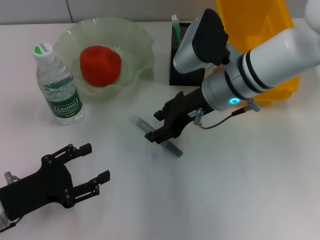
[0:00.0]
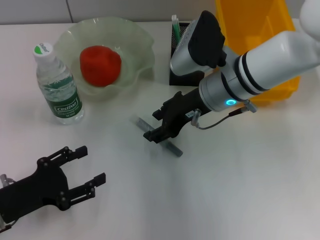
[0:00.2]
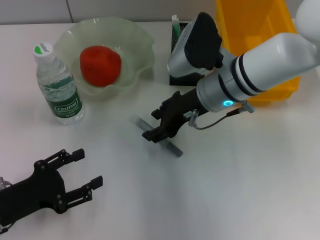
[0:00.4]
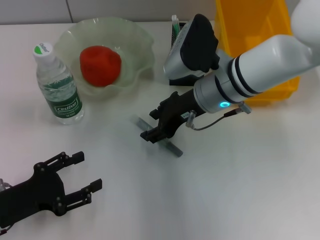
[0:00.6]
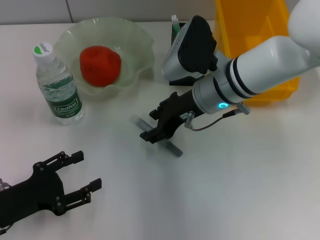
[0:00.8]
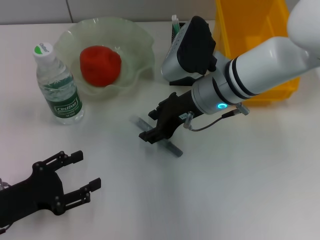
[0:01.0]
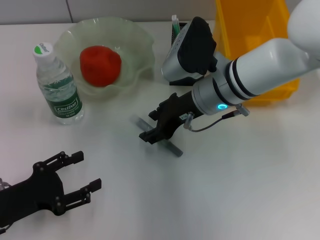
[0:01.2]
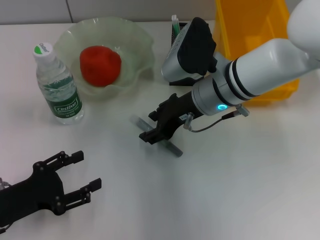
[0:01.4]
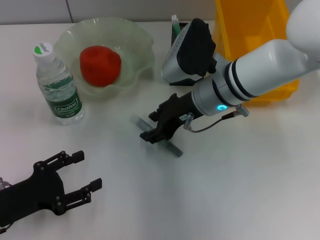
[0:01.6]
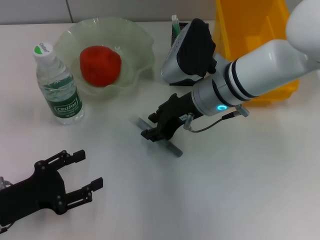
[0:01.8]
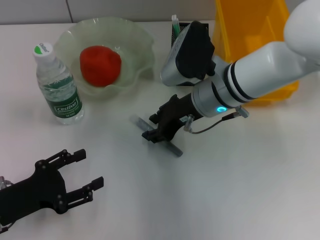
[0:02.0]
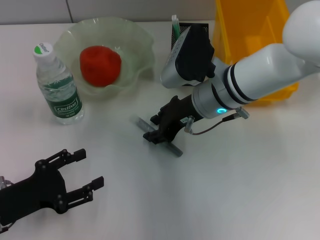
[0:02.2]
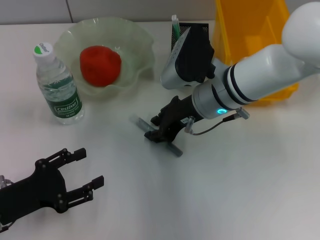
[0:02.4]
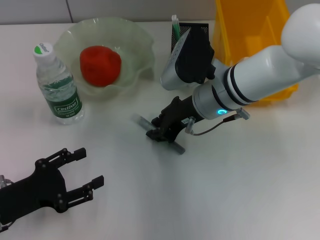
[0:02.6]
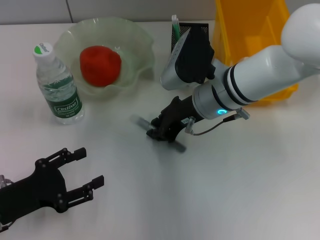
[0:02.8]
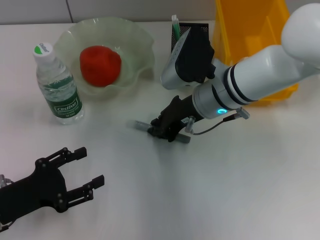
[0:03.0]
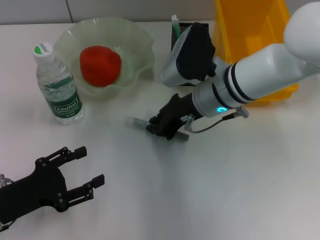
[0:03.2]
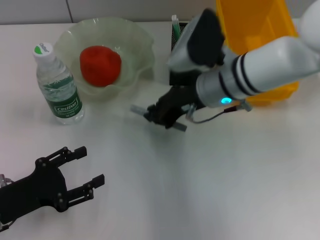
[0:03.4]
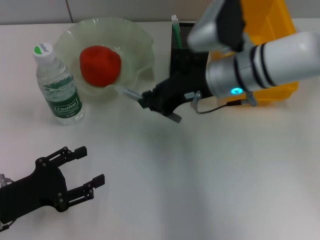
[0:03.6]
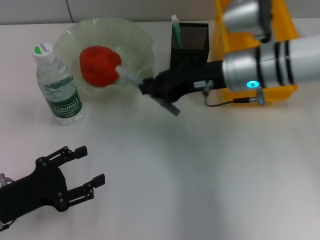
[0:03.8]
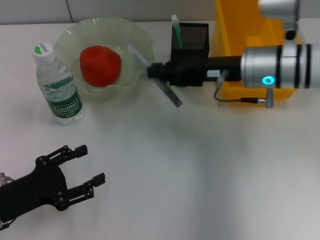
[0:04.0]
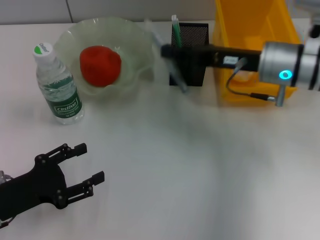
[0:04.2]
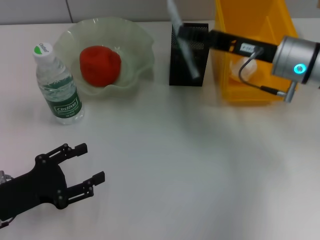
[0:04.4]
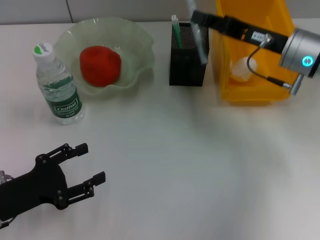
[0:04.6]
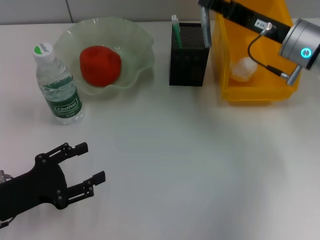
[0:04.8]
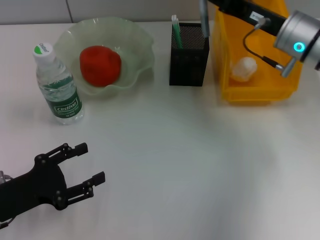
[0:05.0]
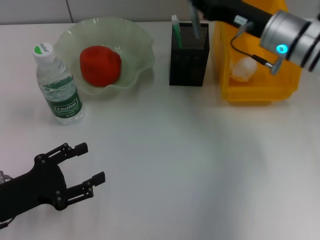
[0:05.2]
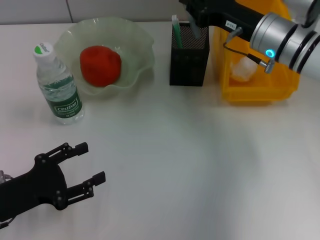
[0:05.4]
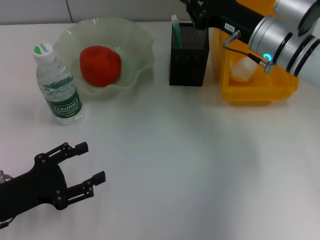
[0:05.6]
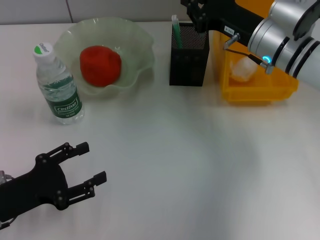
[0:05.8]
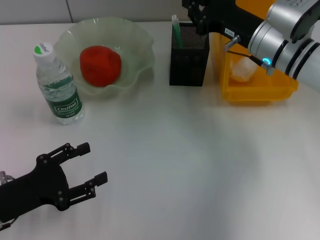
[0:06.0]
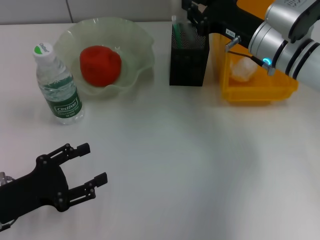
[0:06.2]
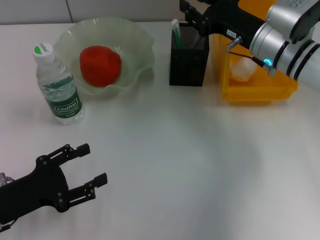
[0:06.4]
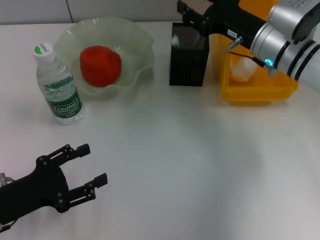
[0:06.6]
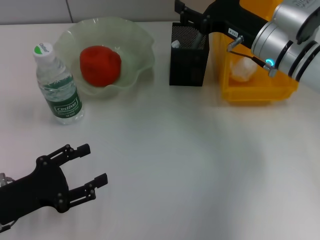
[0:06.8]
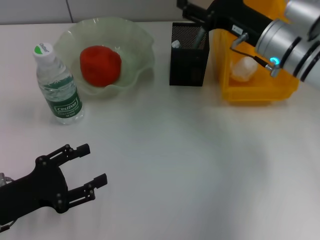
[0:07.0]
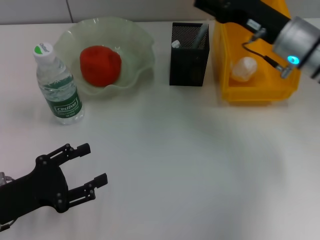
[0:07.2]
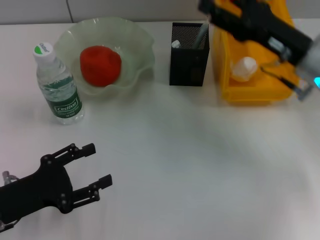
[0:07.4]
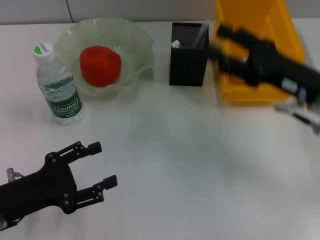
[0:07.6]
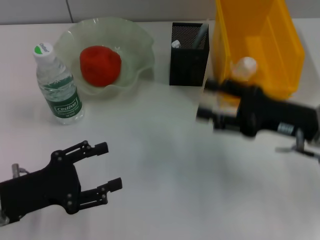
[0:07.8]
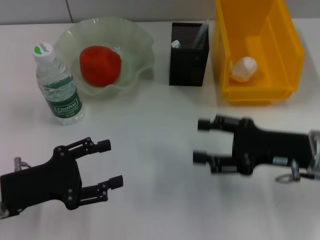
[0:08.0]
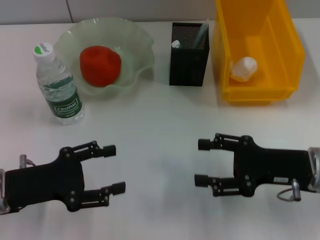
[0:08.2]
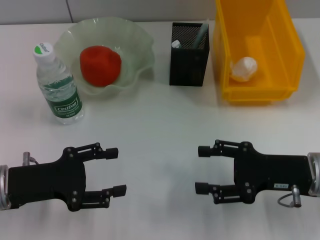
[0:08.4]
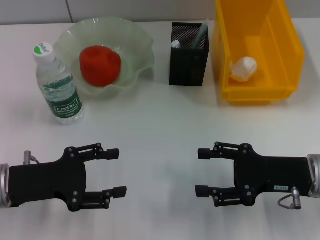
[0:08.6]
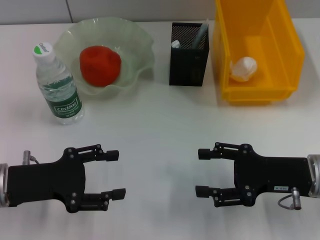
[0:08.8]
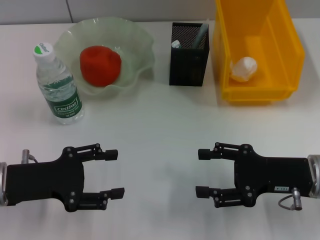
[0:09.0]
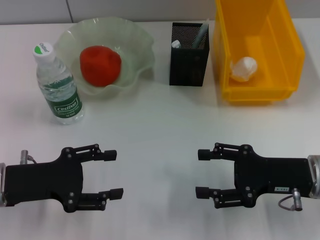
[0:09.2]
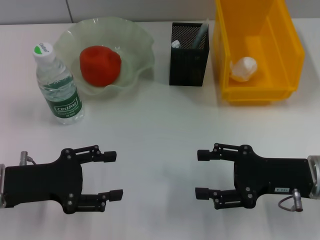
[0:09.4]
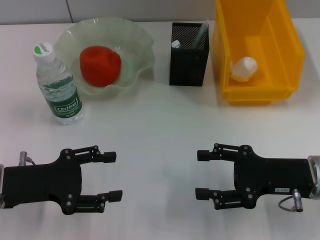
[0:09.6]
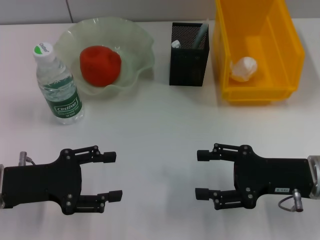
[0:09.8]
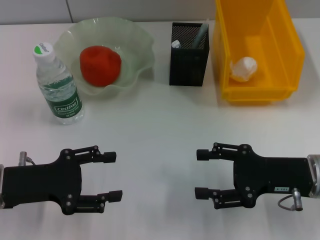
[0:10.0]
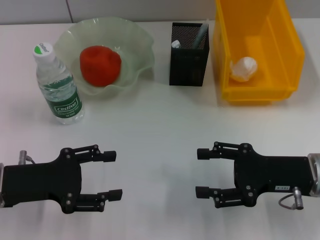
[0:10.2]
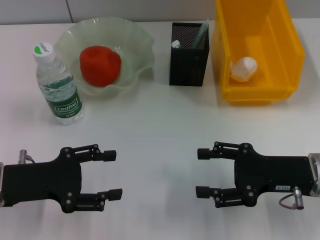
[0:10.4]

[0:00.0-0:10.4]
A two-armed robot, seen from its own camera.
Step, 0:00.0 to 0:02.8: Grab the gray glue with the right hand.
Step, 0:03.2 to 0:06.4: Place the gray glue into the pen holder with the right hand.
0:00.0 to 0:01.4: There are only small adjustments of the grippers.
0:01.4 to 0:03.0: The right gripper closes.
0:03.0 to 0:04.4: The right gripper travels to the right by approximately 10 cm.
0:06.0 to 0:07.4: The right gripper shifts approximately 5 cm backward, and opens.
0:07.4 to 0:09.0: The left gripper changes place by roughly 5 cm, while the right gripper shifts approximately 10 cm backward and downward.
0:09.0 to 0:10.4: Both grippers stay about where they are.

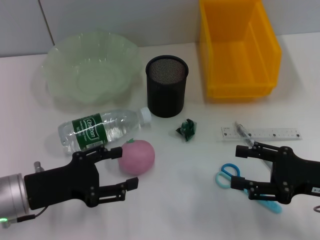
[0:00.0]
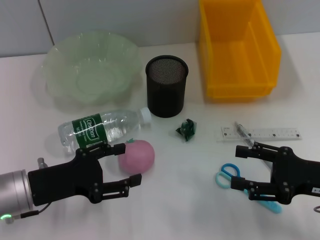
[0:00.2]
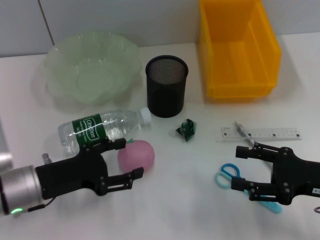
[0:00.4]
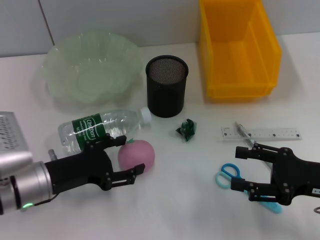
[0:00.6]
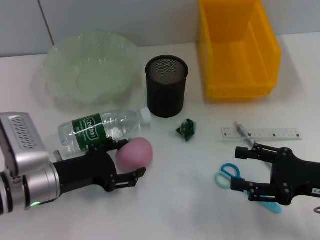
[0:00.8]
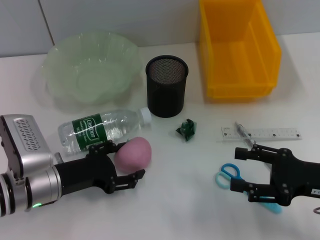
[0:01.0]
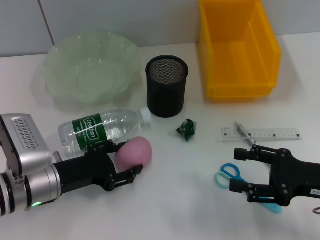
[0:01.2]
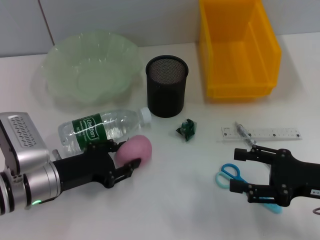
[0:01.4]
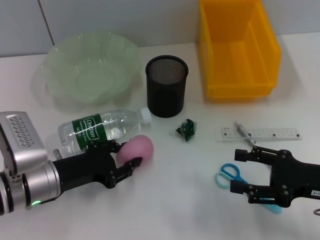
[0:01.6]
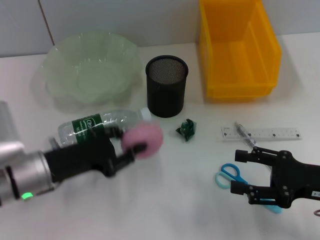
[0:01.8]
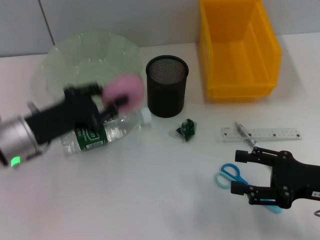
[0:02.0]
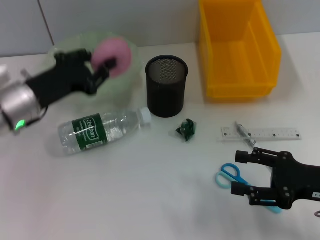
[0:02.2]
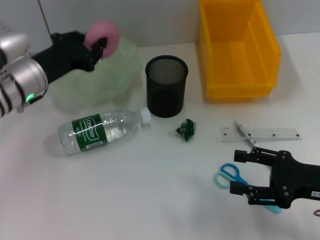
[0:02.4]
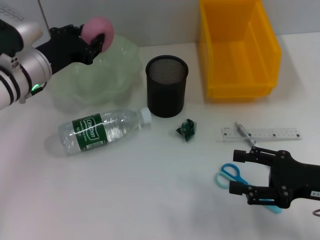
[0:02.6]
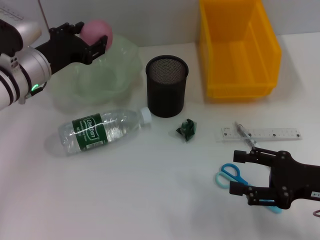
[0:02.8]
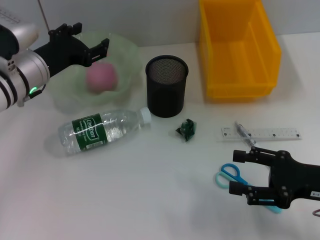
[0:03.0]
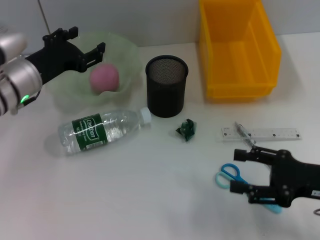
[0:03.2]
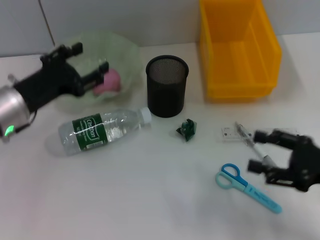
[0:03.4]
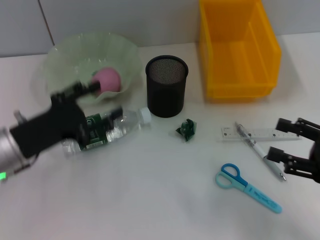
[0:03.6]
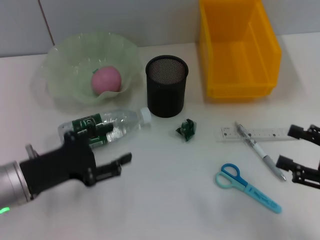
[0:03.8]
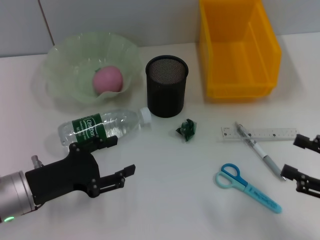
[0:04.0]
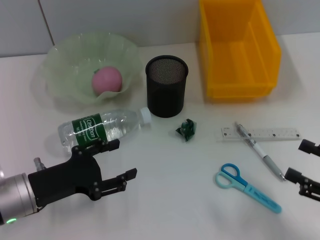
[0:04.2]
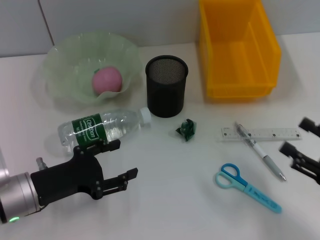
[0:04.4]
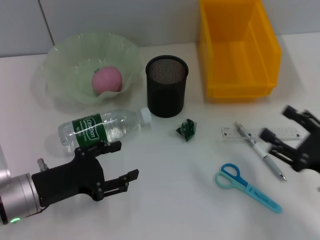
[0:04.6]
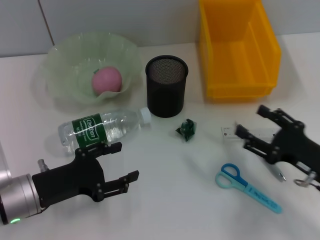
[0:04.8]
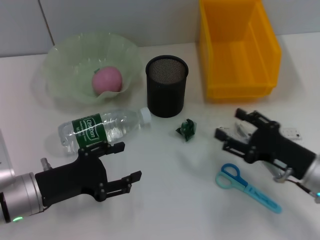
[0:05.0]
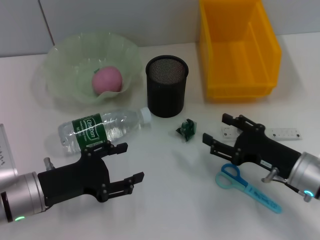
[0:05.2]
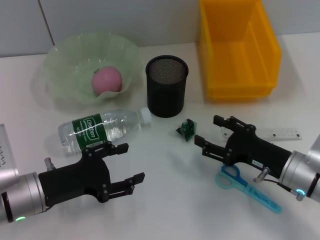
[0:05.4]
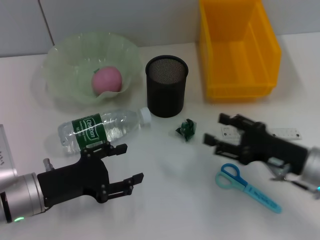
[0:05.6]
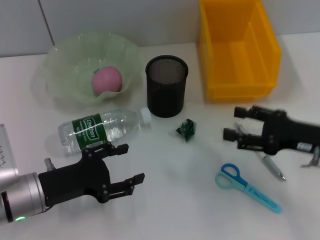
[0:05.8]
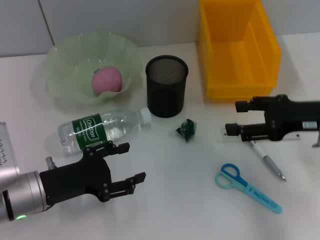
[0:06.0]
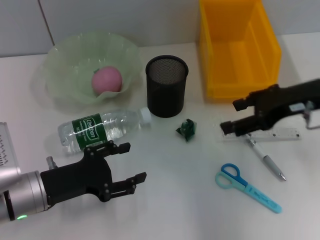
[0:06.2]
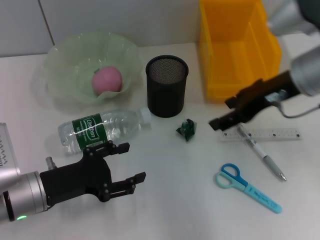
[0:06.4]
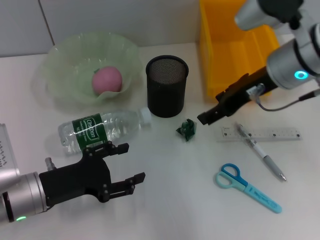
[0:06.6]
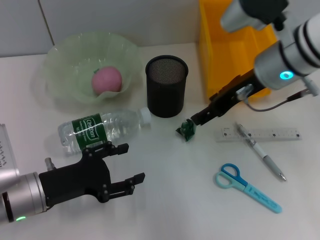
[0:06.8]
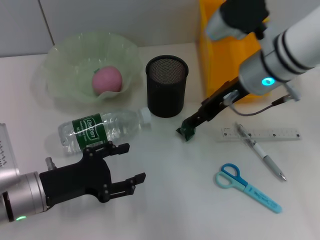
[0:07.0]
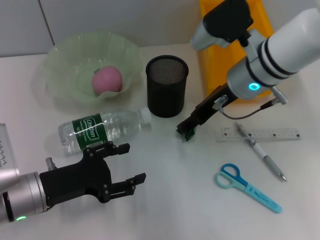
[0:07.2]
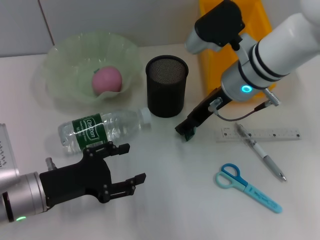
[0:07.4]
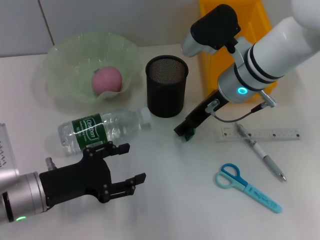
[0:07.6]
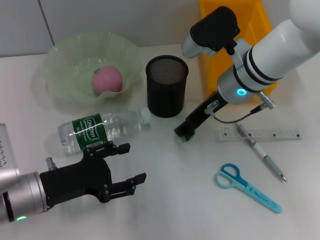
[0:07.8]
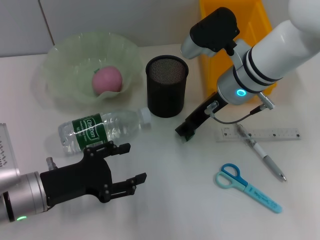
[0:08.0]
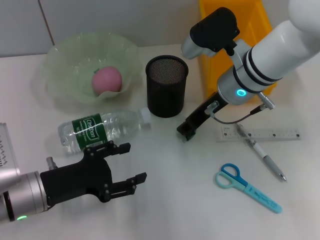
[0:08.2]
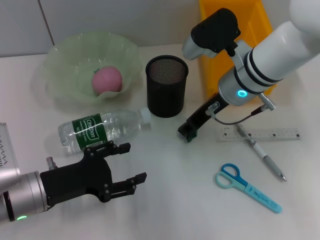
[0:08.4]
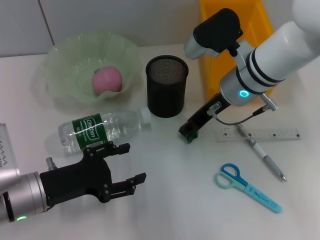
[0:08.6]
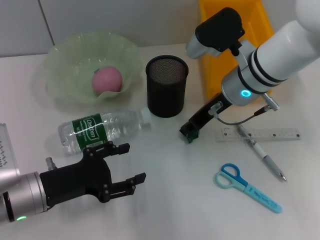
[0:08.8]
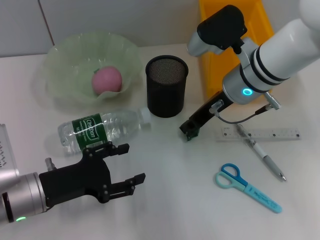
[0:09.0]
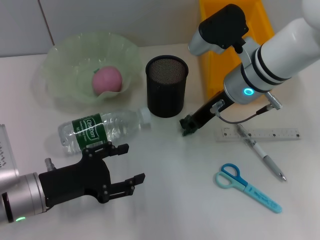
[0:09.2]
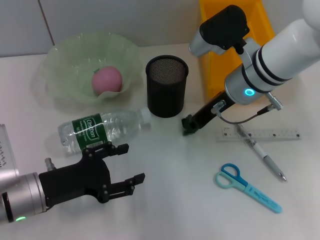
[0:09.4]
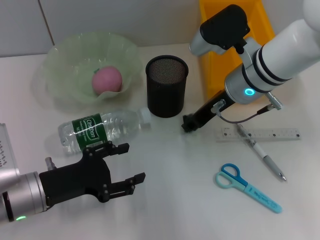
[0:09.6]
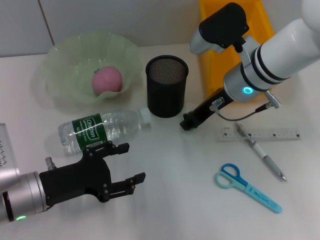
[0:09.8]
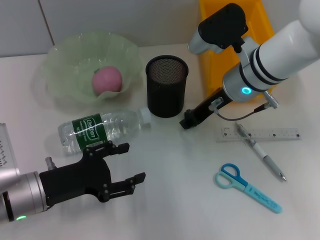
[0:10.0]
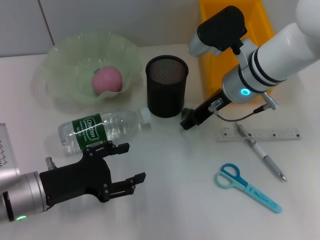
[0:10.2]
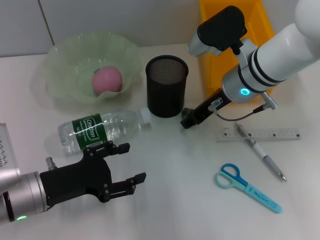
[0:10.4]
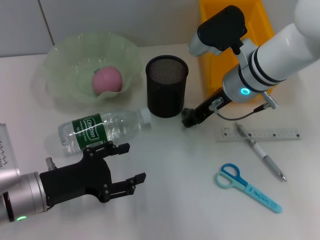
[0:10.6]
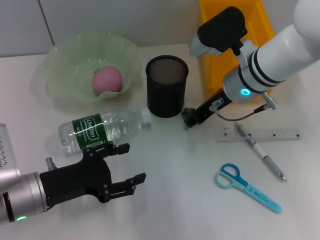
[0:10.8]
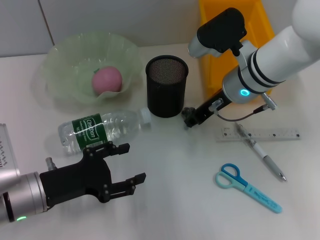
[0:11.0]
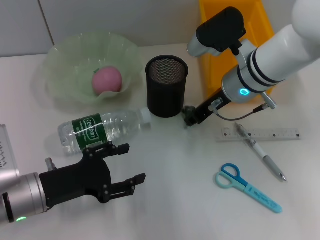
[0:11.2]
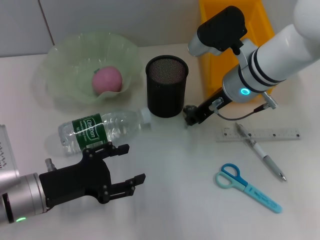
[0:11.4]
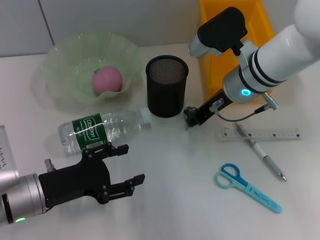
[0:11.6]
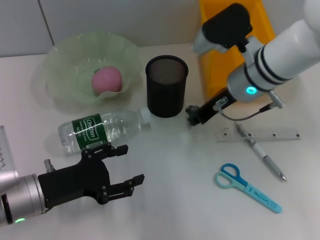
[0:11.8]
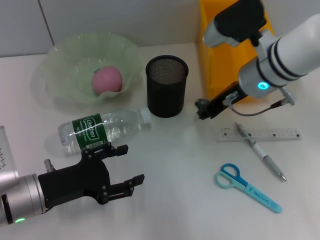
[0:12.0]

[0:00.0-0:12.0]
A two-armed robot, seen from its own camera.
Step, 0:00.0 to 0:01.4: Grab the peach with the left hand.
Step, 0:01.6 to 0:03.6: Place the peach into the fruit bowl with the left hand.
Step, 0:03.8 to 0:11.2: Grab the plastic with the right hand.
0:00.0 to 0:01.6: The left gripper closes.
0:01.6 to 0:03.0: The left gripper heads forward and upward, covering roughly 15 cm, and opens up.
0:03.0 to 0:04.4: The left gripper moves backward and downward, approximately 15 cm, while the right gripper moves about 5 cm.
0:04.4 to 0:06.0: The right gripper goes approximately 15 cm forward and upward.
0:06.0 to 0:07.6: The right gripper moves to the left and forward, roughly 20 cm.
0:07.6 to 0:09.0: The right gripper closes.
0:09.0 to 0:10.4: The two grippers keep their place.
0:10.4 to 0:12.0: The right gripper closes.
